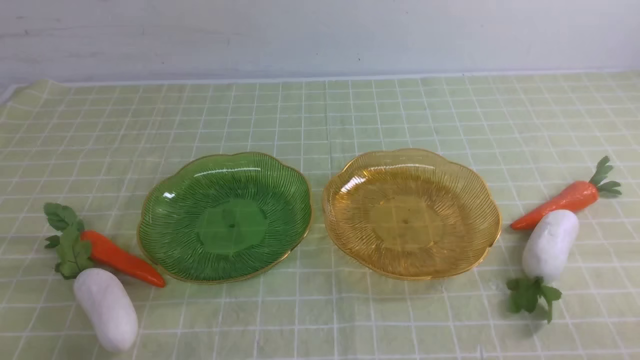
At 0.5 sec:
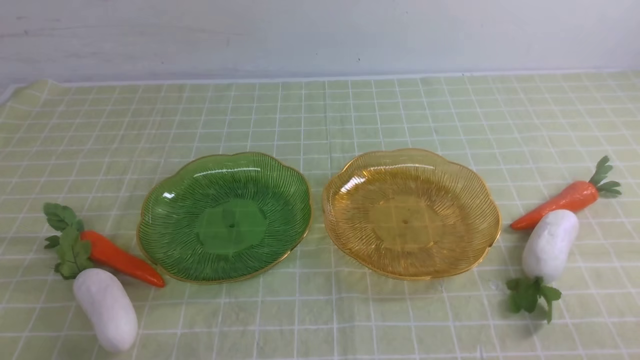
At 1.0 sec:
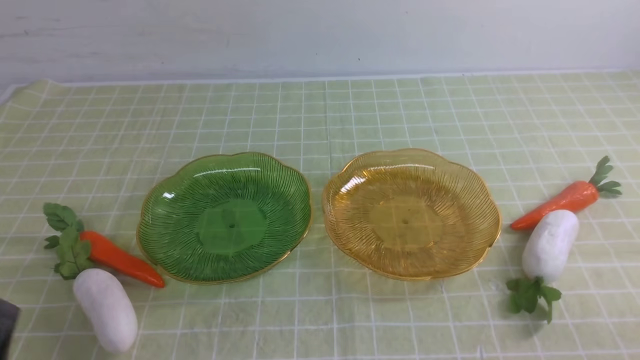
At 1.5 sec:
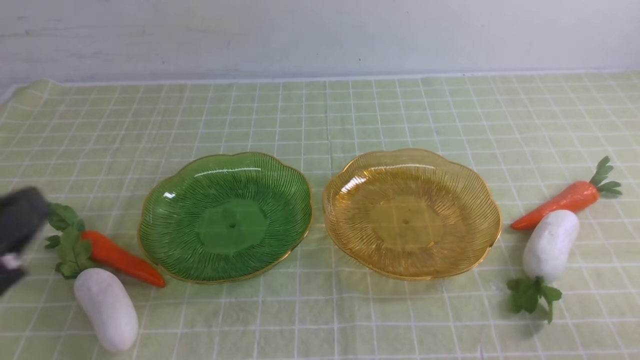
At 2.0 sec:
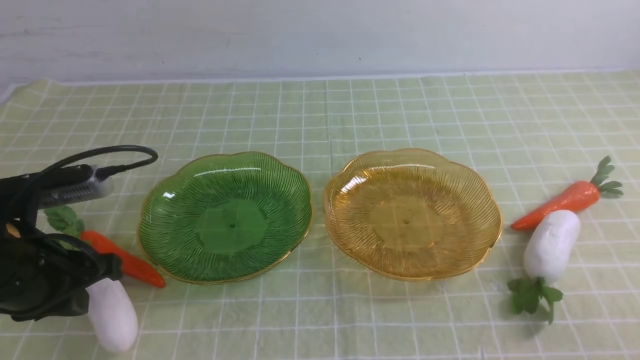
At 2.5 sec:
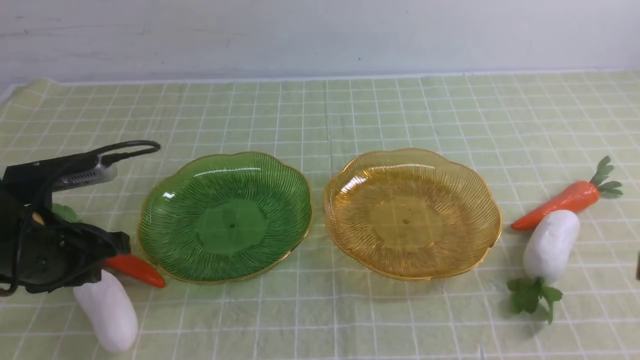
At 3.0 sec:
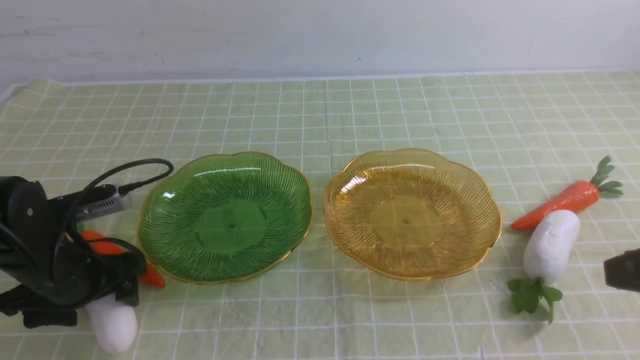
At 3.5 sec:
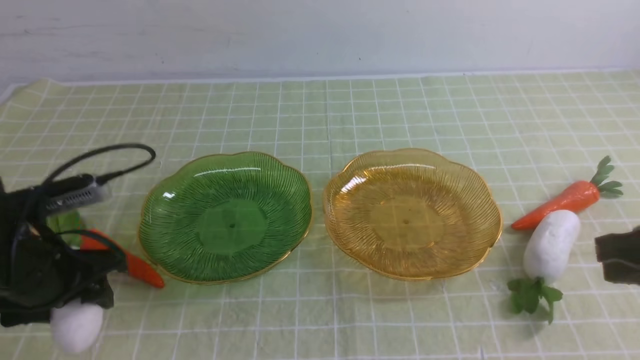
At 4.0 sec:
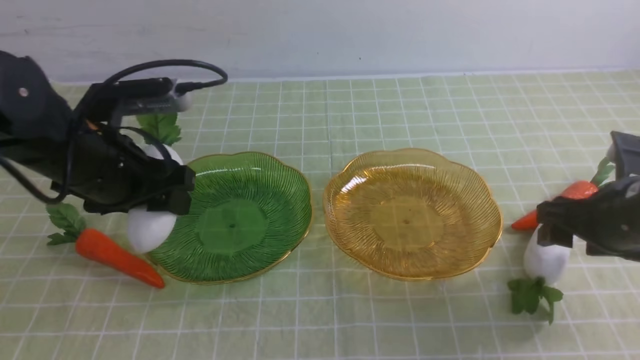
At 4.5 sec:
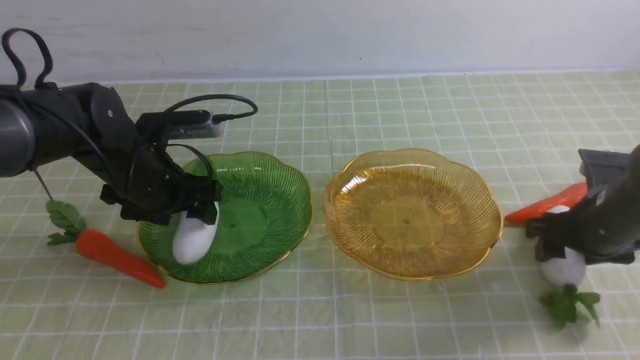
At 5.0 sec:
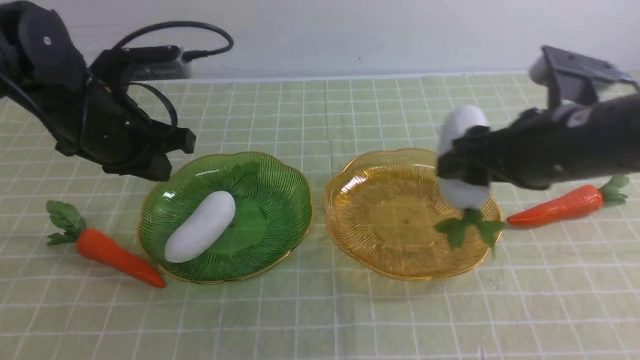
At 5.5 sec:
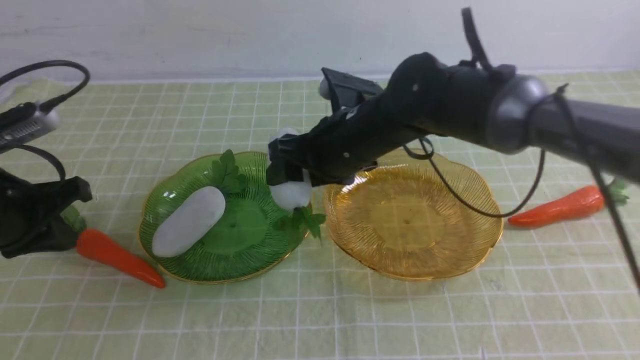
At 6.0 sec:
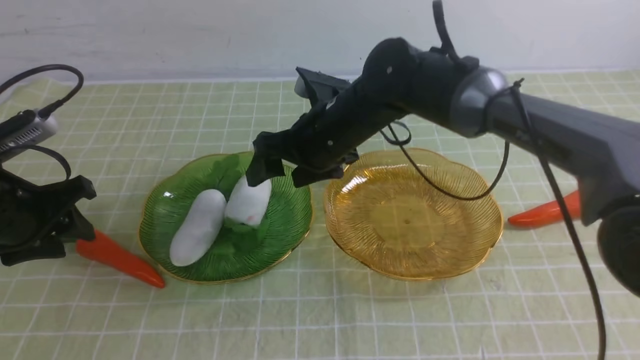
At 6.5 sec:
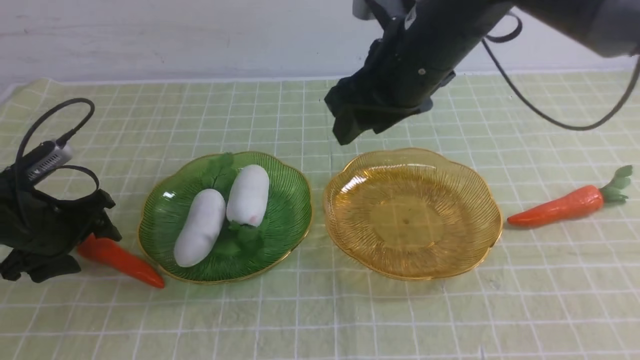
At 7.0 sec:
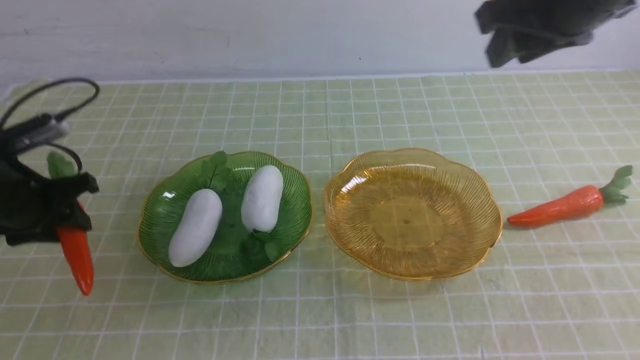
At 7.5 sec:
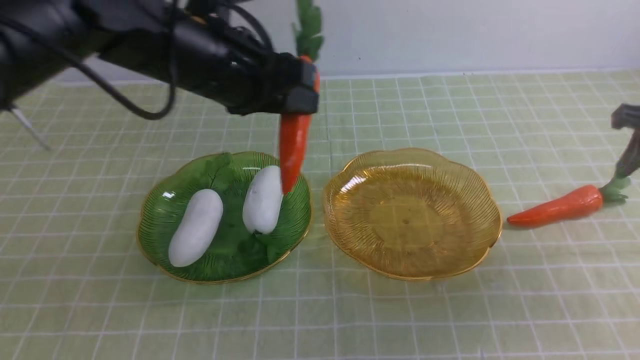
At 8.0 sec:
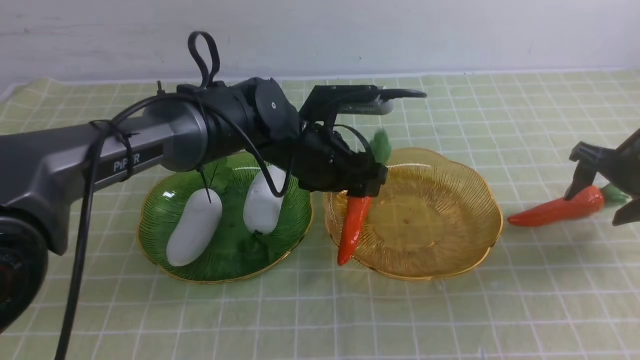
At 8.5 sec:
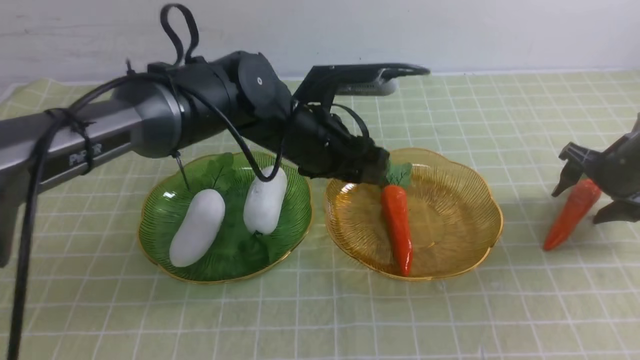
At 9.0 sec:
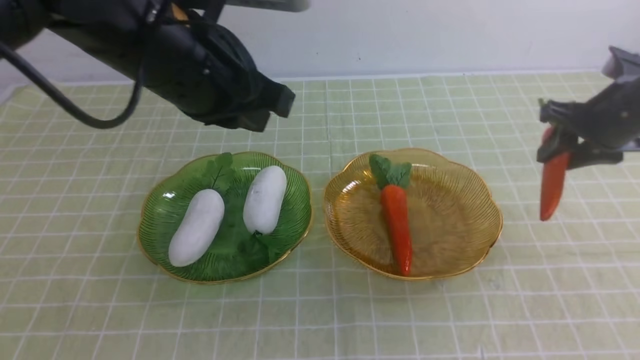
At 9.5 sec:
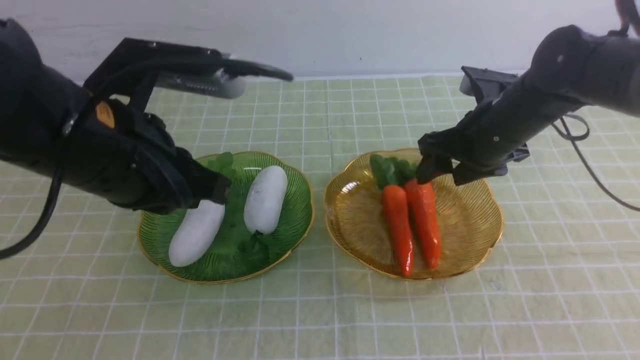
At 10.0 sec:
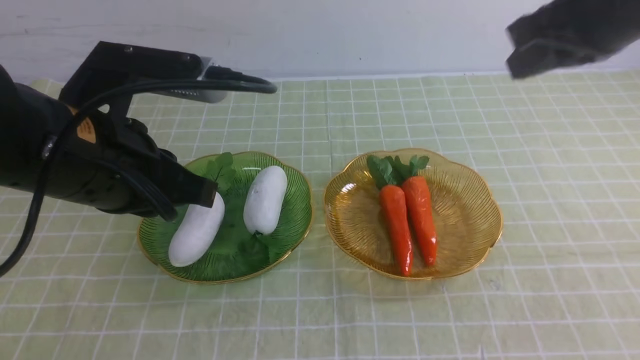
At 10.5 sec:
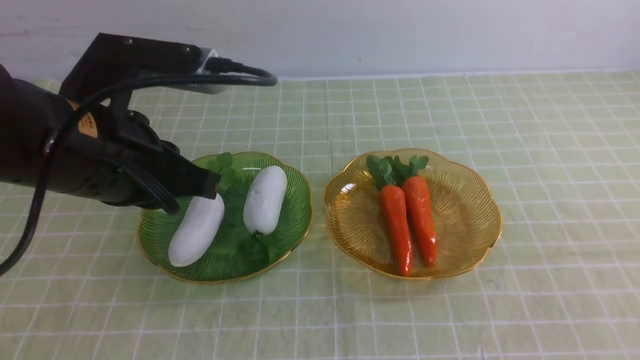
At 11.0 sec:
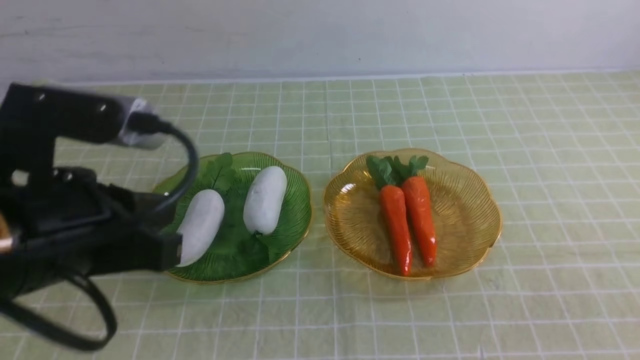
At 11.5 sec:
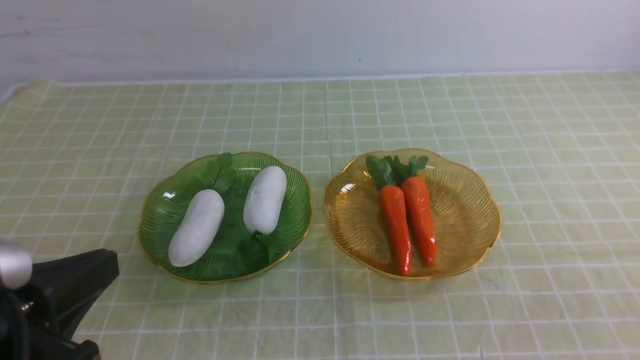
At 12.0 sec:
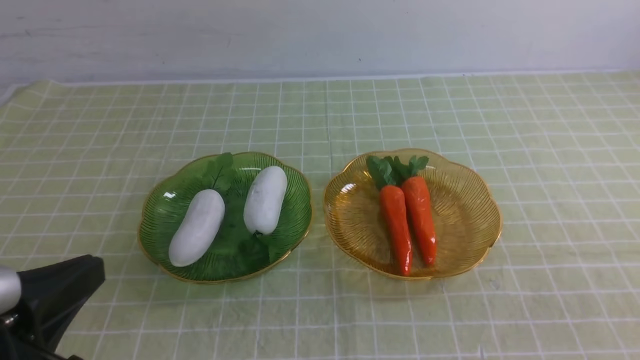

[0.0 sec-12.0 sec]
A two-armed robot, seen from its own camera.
Step, 0.0 sec to 4.5 sec: use the left arm to grab a radish and put it into the left plate.
Step, 6.0 sec to 8.5 sec: use the left arm to grab a carrot and put it into the right plate.
Step, 9.0 sec to 10.5 sec: use the right arm to grab a carrot and put it into the left plate.
0.0 sec to 2.0 sec: The left gripper travels forward and upward by approximately 20 cm.
2.0 sec to 4.0 sec: The right gripper heads forward, covering approximately 25 cm, and opens up; the left gripper goes roughly 10 cm forward, and opens its fingers.
4.0 sec to 6.0 sec: The right gripper is displaced to the left and forward by some 30 cm, while the left gripper heads to the left, covering some 10 cm, and closes, then opens again.
6.0 sec to 8.0 sec: The grippers both shift to the right by some 30 cm. The right gripper closes, then reopens.
8.0 sec to 10.0 sec: The right gripper is displaced upward, to the left and backward by about 30 cm, and closes its fingers. Meanwhile the left gripper travels backward, to the left and upward by approximately 25 cm, and closes up.
10.0 sec to 12.0 sec: The left gripper moves backward, to the left and downward, approximately 15 cm. Meanwhile the right gripper heads backward and downward, covering approximately 30 cm.
